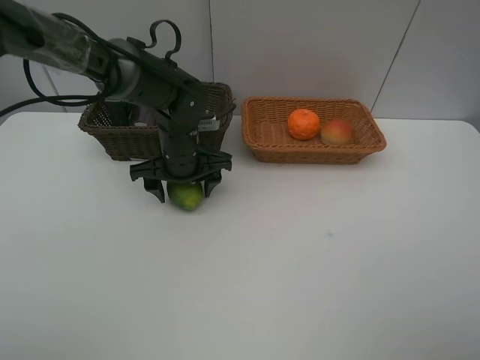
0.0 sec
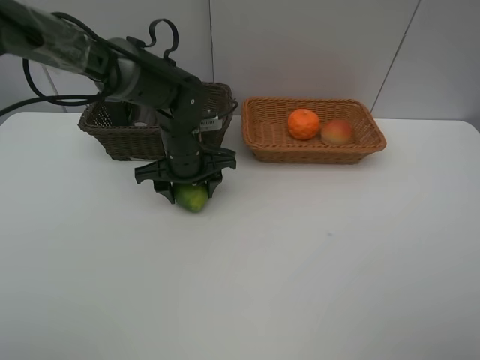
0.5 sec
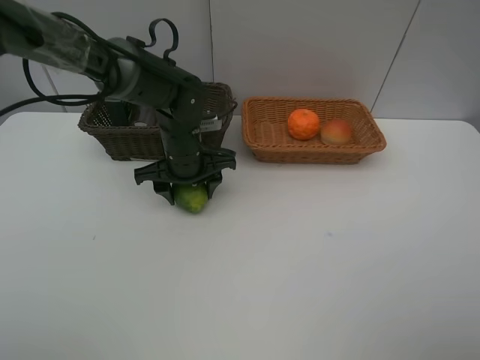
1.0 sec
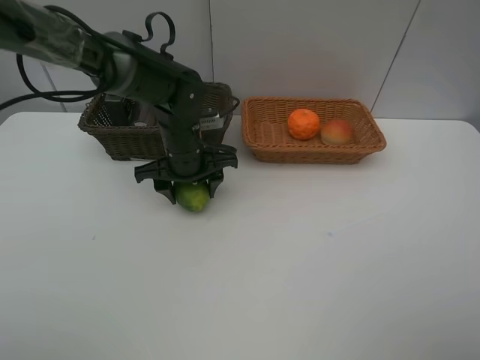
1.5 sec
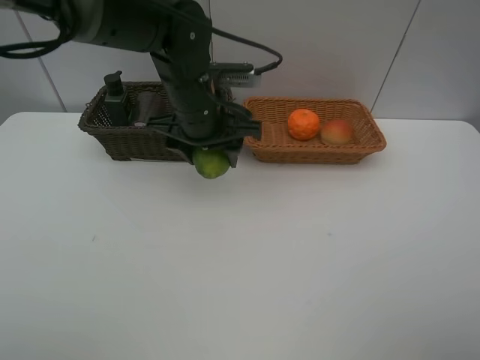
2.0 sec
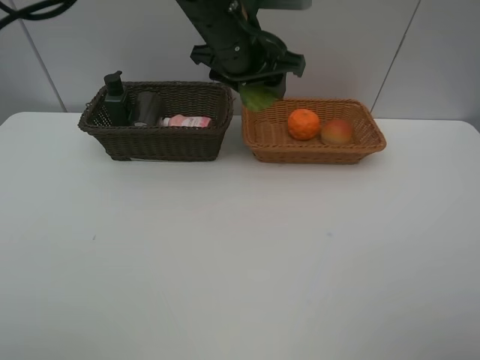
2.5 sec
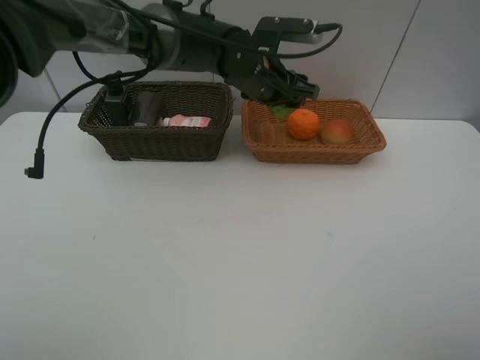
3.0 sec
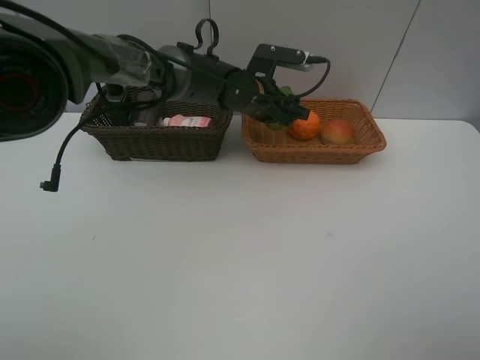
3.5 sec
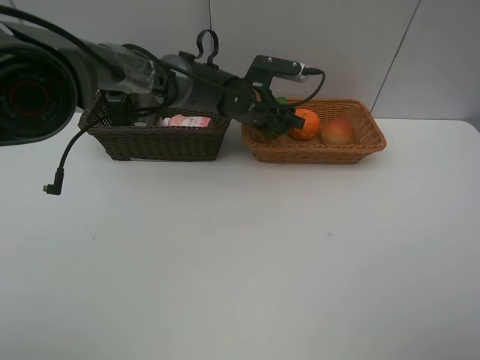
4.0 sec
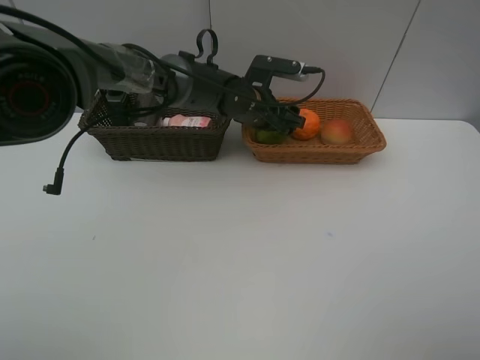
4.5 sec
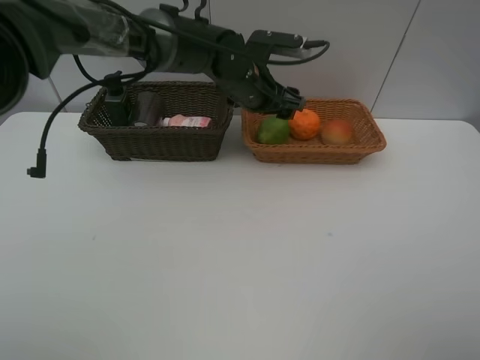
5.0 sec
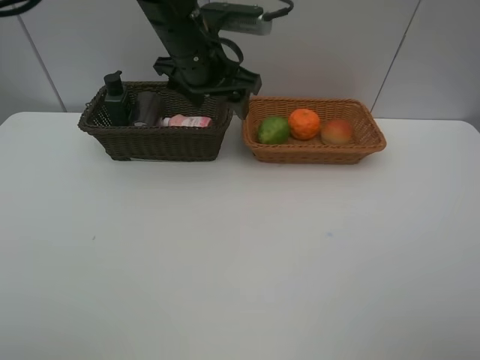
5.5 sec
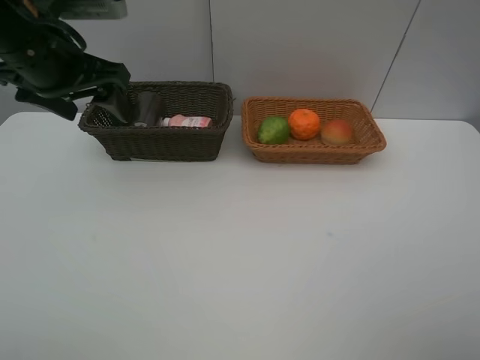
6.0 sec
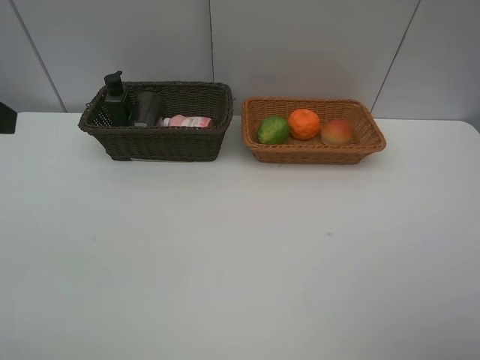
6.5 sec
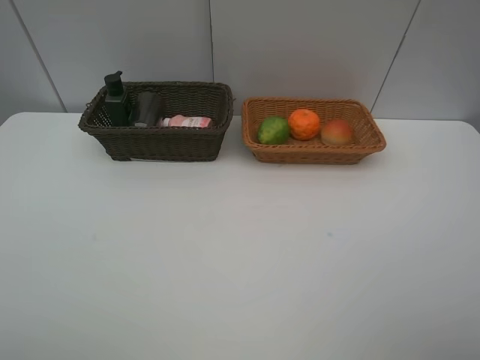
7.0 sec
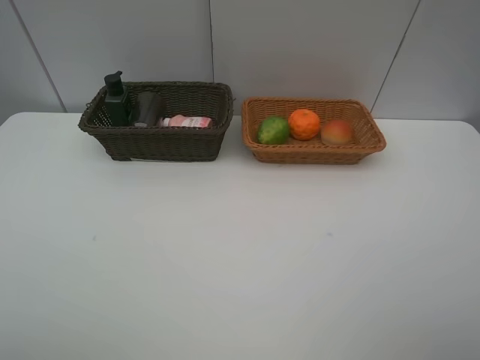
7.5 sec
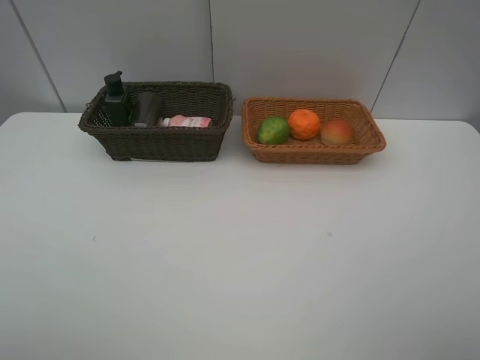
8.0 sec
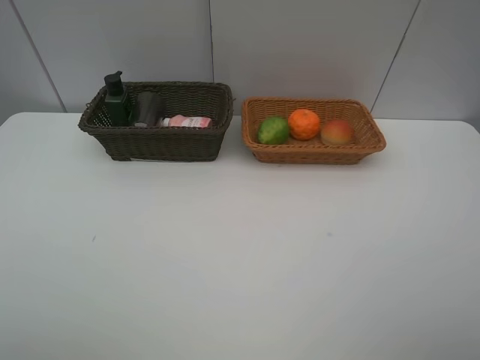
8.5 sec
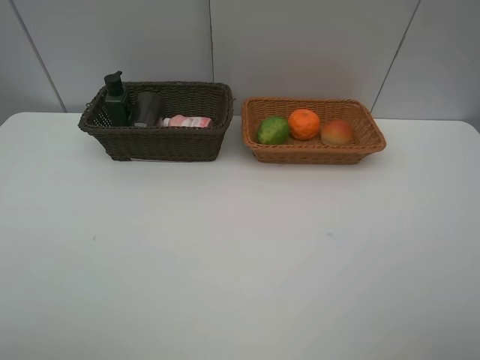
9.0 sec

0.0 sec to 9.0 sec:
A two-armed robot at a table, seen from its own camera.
Task of the whole recording: place multiple objects separately in different baskets.
0.0 sec to 2.0 sec: The left gripper shifts roughly 10 cm upward.
2.0 sec to 4.5 sec: The left gripper shifts approximately 15 cm forward, downward and to the right, and opens its fingers.
4.5 sec to 7.0 sec: The left gripper moves backward, to the left and upward, roughly 60 cm.

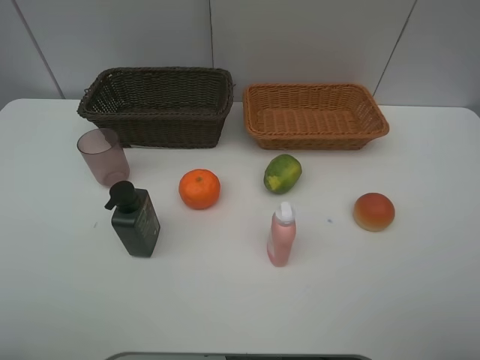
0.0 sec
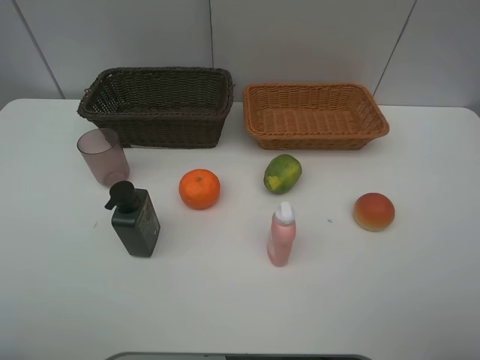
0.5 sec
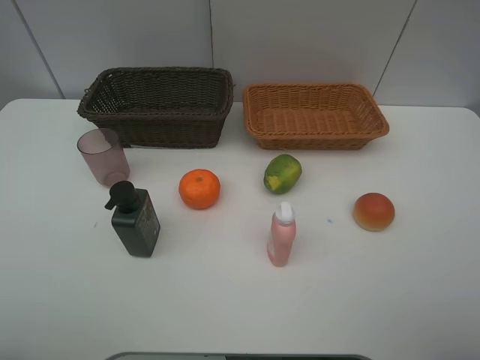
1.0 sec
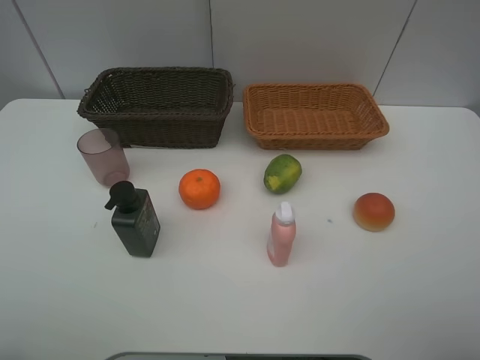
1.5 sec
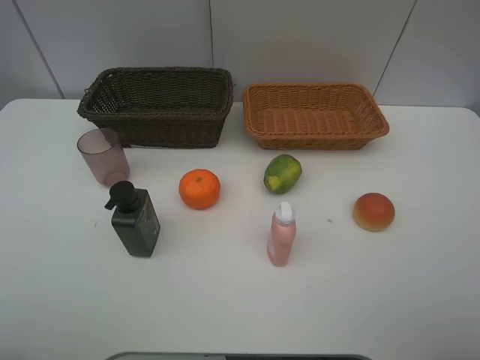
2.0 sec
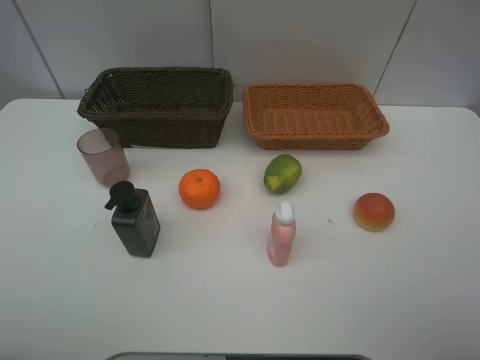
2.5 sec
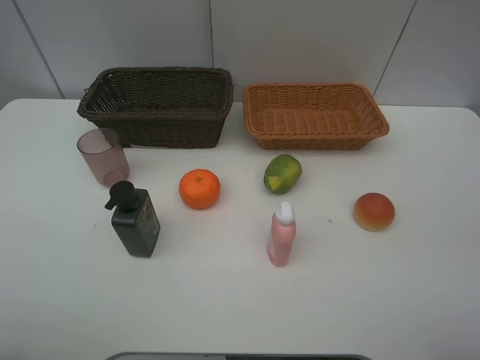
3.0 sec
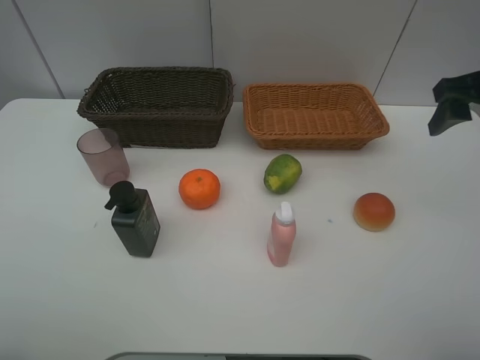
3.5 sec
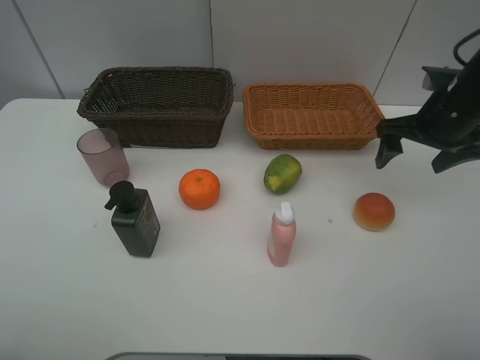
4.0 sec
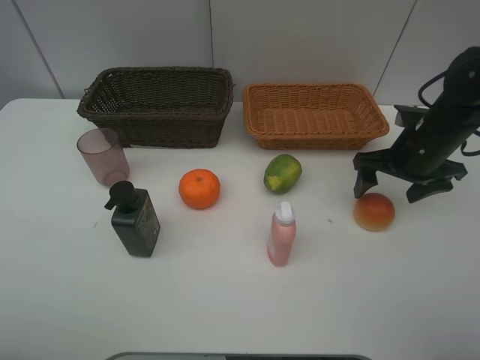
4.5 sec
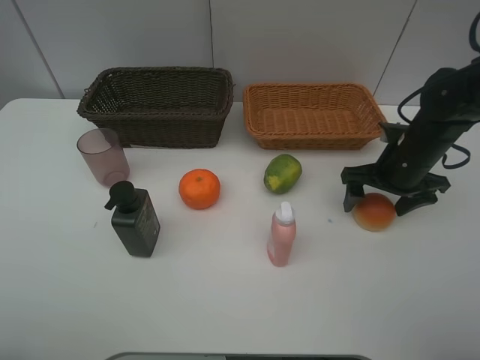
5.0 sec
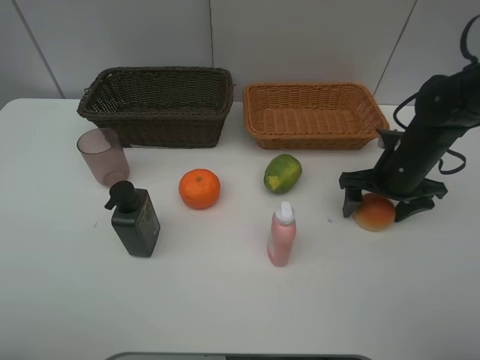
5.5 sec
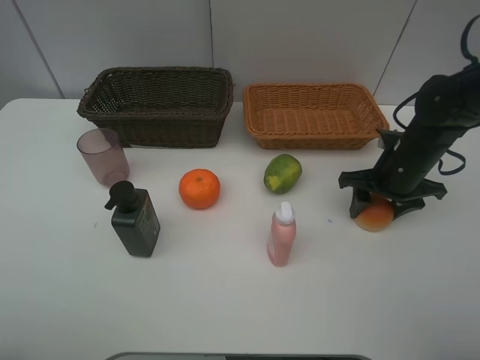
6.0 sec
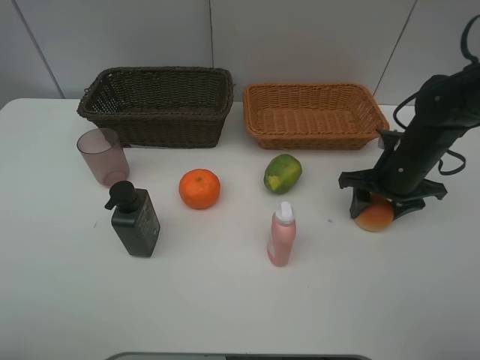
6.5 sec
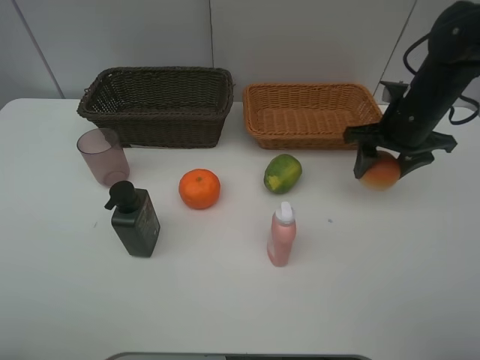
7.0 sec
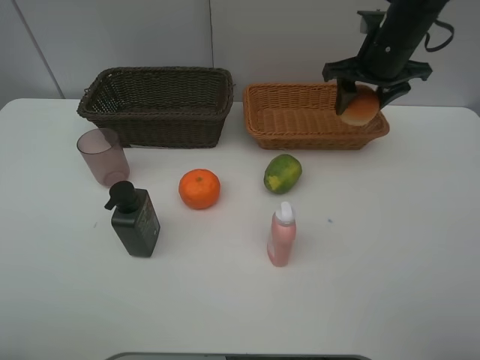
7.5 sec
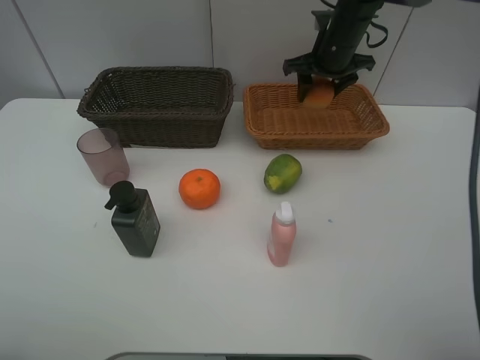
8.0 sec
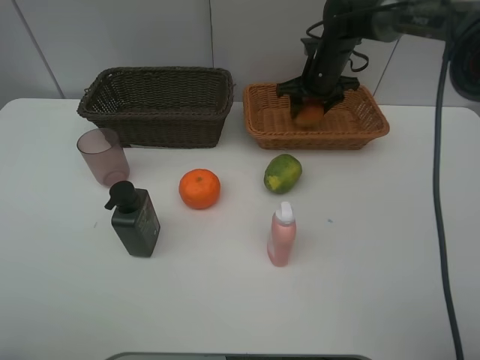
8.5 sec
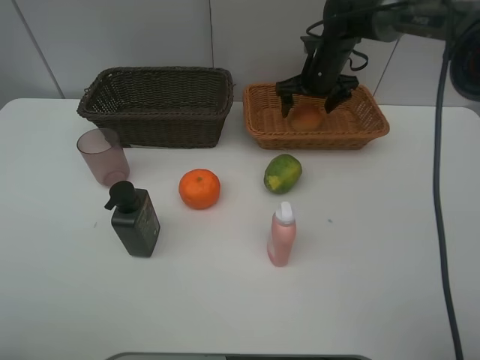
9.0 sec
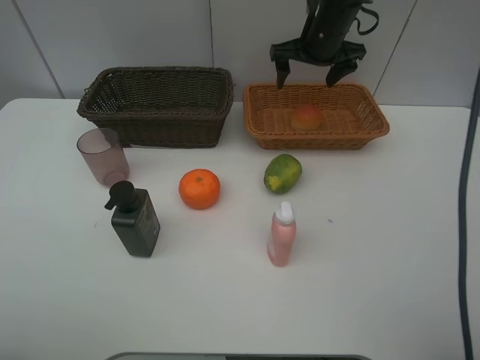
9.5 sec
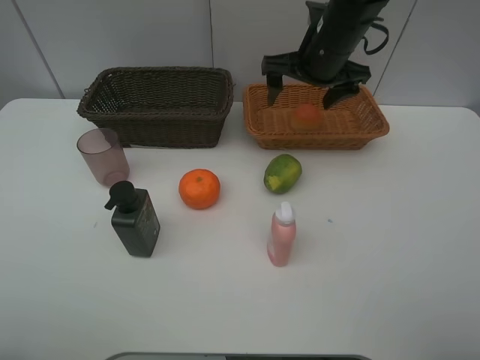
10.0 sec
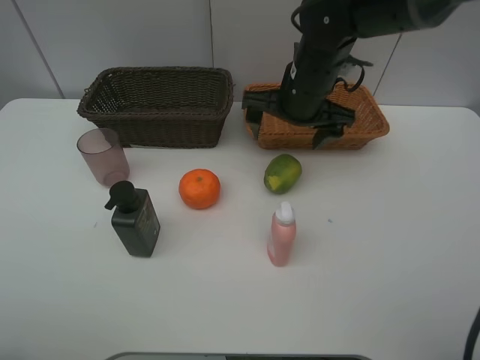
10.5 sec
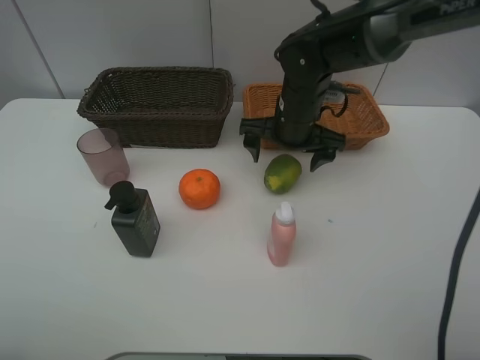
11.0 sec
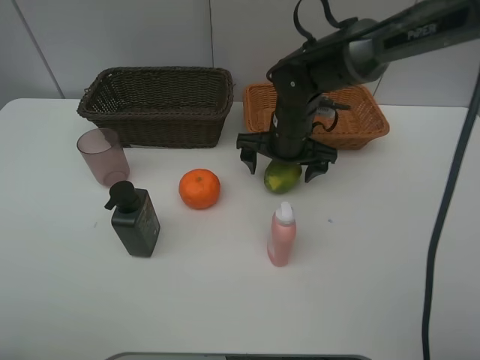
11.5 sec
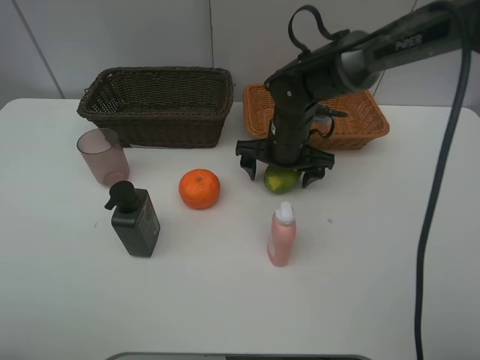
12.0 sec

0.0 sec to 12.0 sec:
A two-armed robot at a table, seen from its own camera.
Task of the whole recording: place multiple objects separately in different baskets.
0.0 sec to 2.0 sec: Both grippers stay about where they are.
2.0 sec to 4.0 sec: The right gripper shifts approximately 30 cm forward.
4.0 sec to 6.0 sec: The right gripper travels downward by about 10 cm, and closes up.
6.0 sec to 8.0 sec: The right gripper heads forward, upward and to the left, covering roughly 20 cm.
8.0 sec to 10.0 sec: The right gripper moves backward, some 10 cm, and opens.
10.0 sec to 12.0 sec: The right gripper shifts some 10 cm downward.

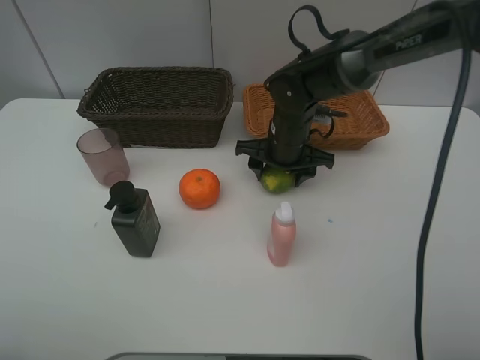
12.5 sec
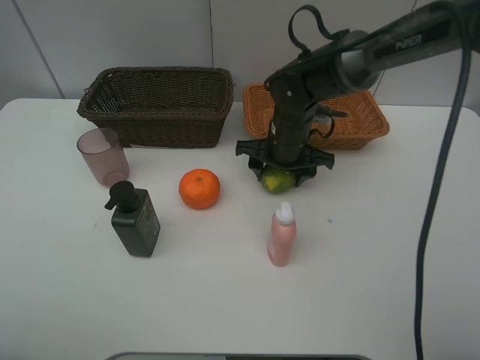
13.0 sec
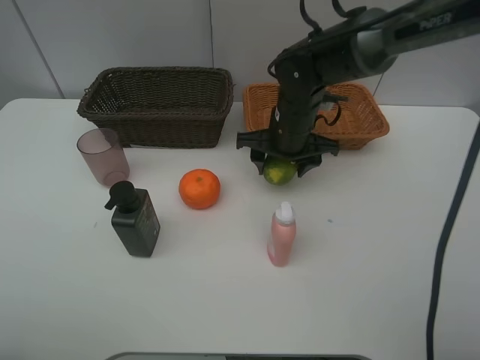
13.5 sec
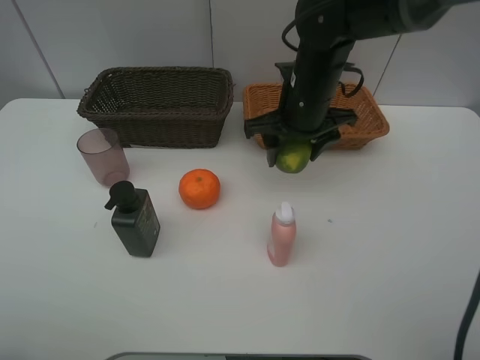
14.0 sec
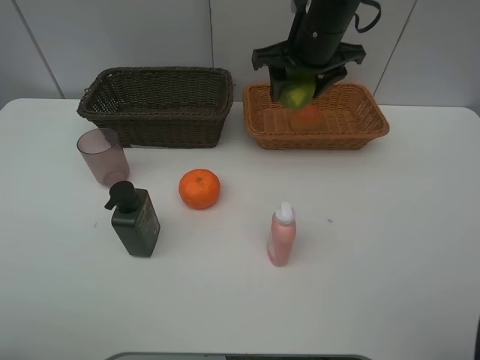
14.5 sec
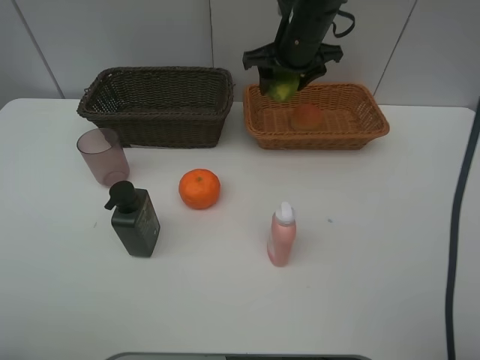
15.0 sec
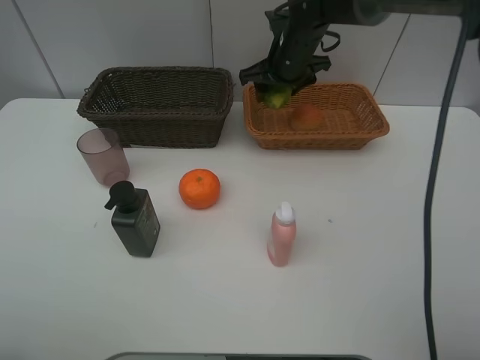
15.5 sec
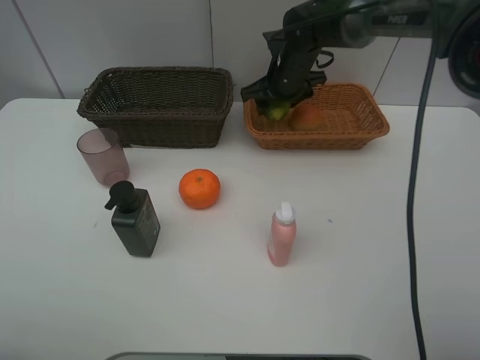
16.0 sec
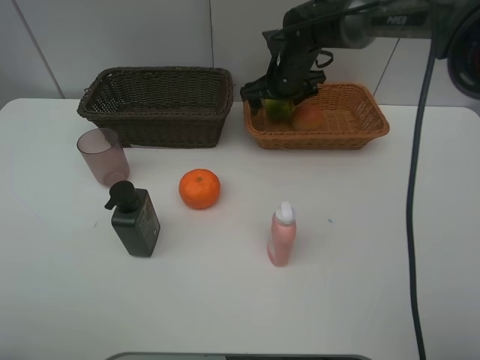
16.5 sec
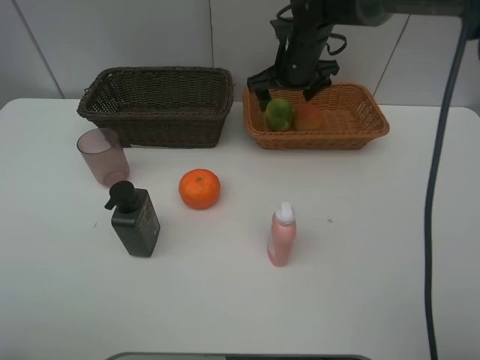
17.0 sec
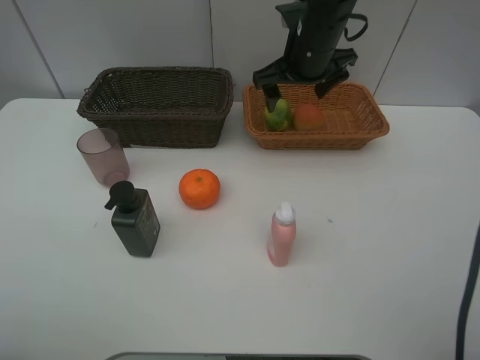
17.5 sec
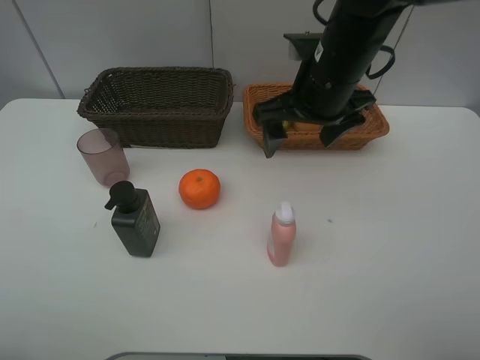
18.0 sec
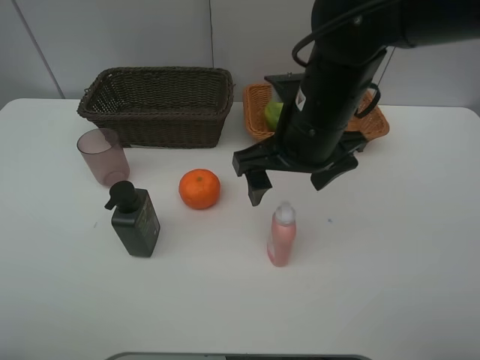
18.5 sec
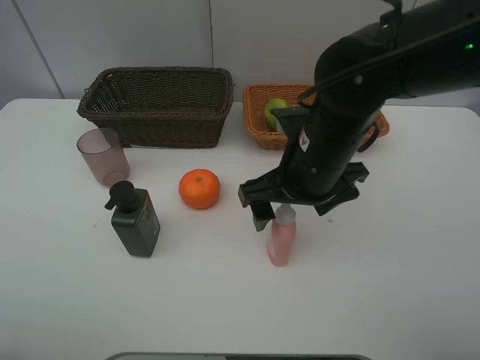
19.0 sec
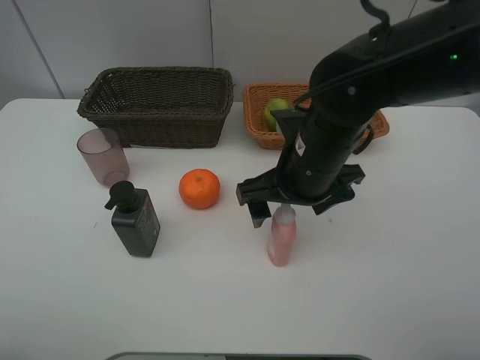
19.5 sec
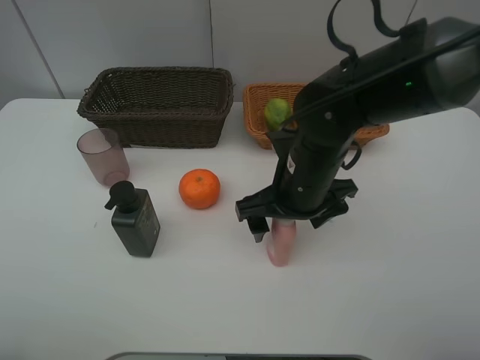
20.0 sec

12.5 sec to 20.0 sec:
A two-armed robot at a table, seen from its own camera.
Task of the whole recording: place multiple objects separately in different baskets.
12.5 sec to 14.5 sec: The right gripper travels upward by some 15 cm.
14.5 sec to 16.5 sec: The right gripper travels downward and forward by about 15 cm, and opens up.
16.5 sec to 18.0 sec: The right gripper is displaced backward and upward by about 20 cm.
18.0 sec to 20.0 sec: The right gripper goes roughly 10 cm downward and backward.
